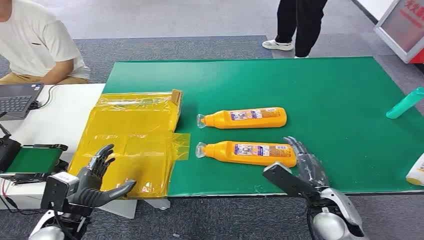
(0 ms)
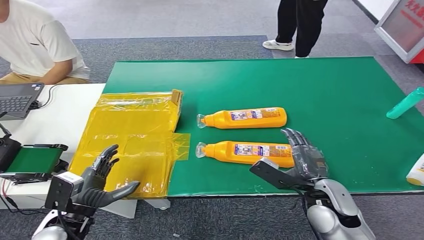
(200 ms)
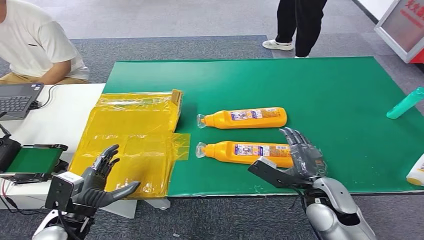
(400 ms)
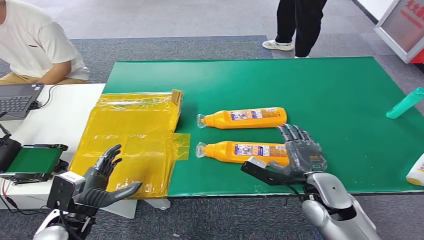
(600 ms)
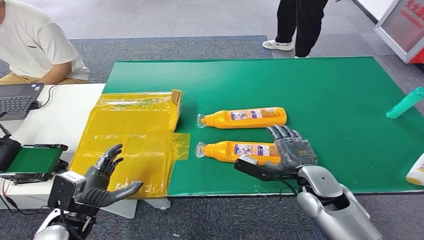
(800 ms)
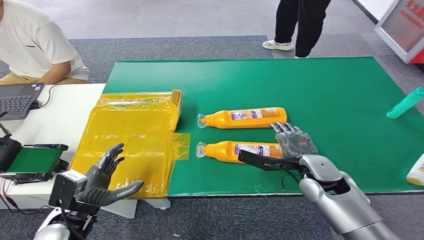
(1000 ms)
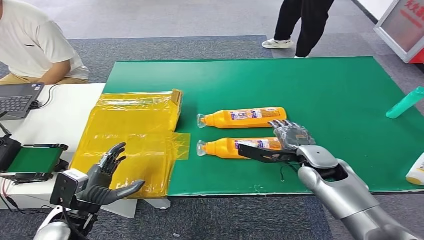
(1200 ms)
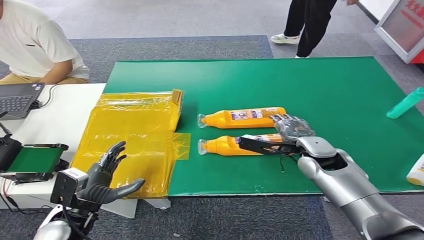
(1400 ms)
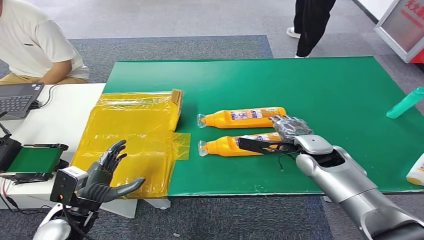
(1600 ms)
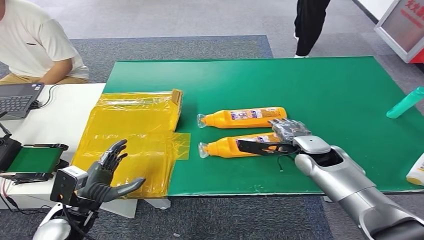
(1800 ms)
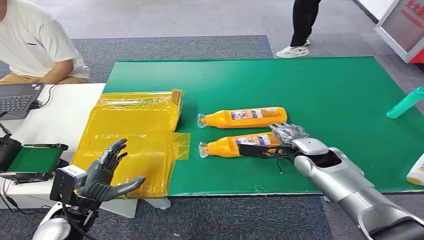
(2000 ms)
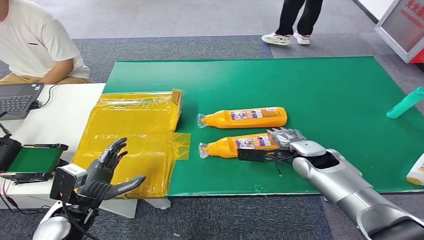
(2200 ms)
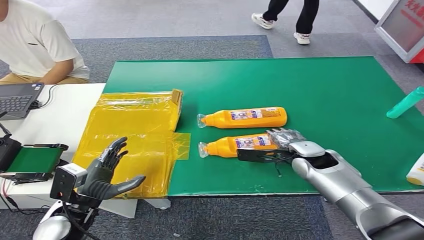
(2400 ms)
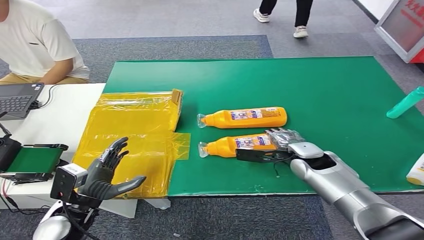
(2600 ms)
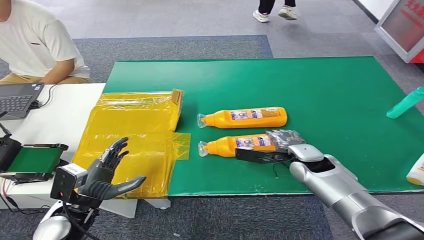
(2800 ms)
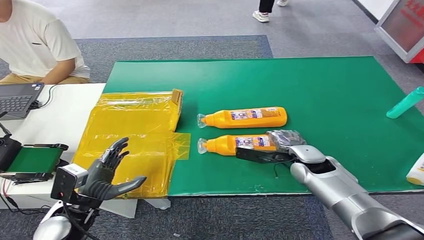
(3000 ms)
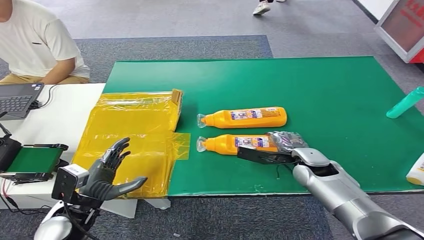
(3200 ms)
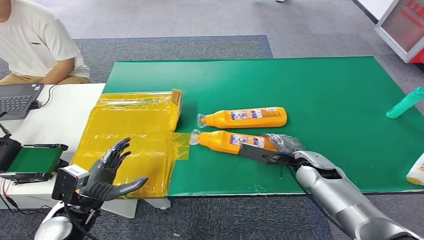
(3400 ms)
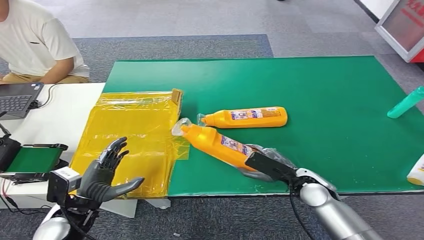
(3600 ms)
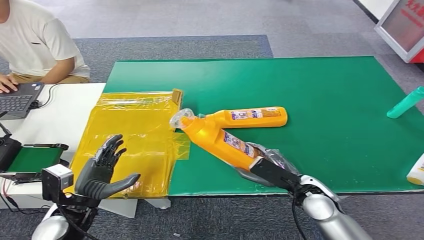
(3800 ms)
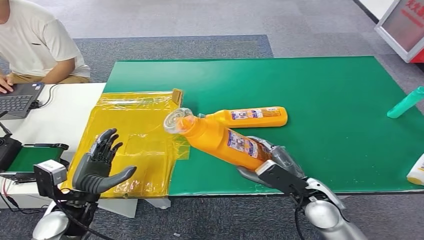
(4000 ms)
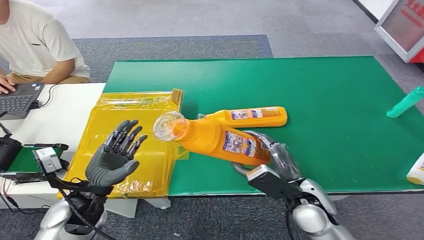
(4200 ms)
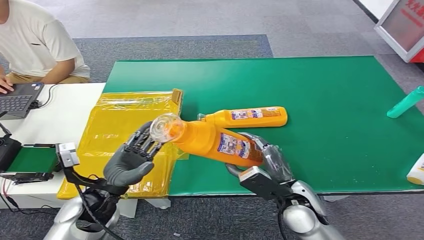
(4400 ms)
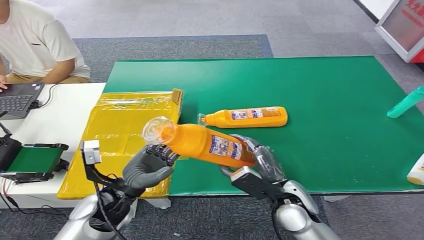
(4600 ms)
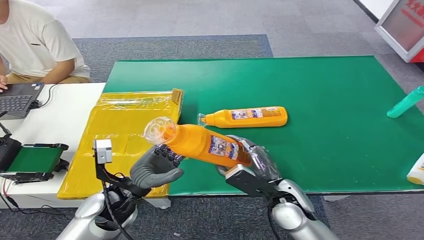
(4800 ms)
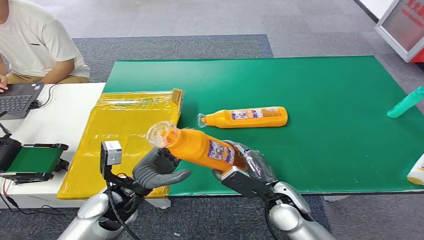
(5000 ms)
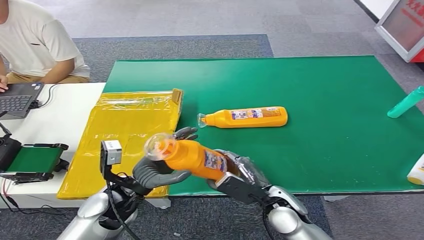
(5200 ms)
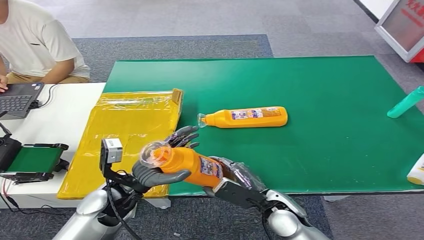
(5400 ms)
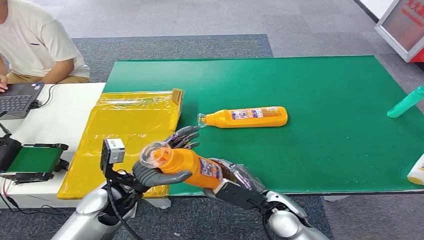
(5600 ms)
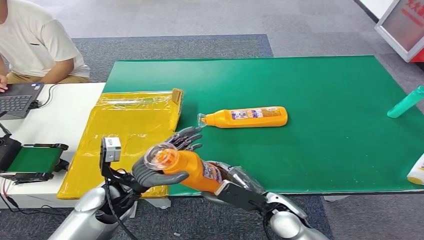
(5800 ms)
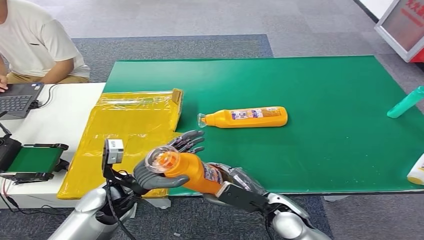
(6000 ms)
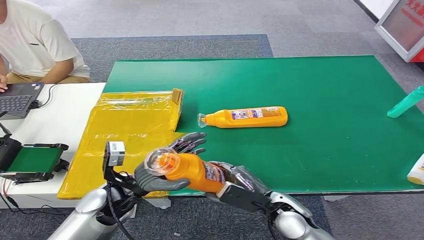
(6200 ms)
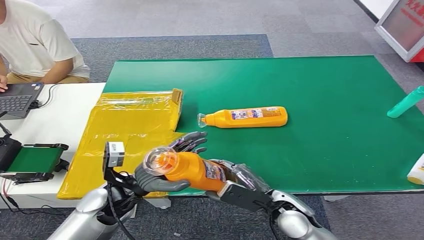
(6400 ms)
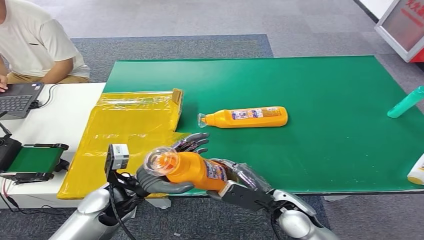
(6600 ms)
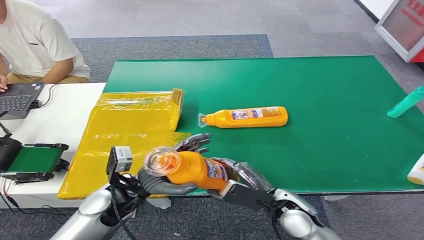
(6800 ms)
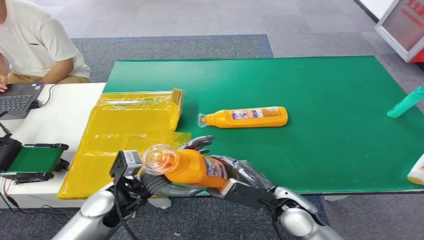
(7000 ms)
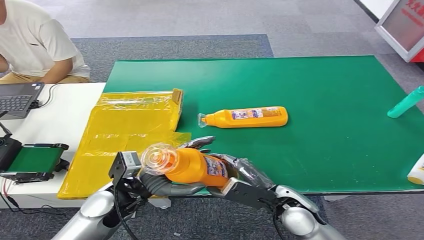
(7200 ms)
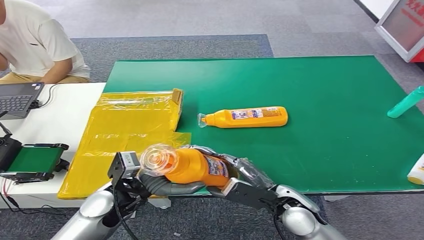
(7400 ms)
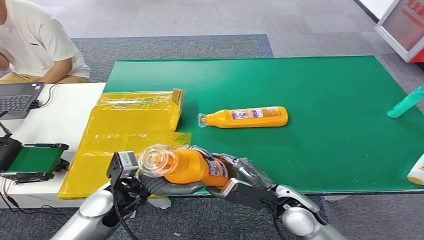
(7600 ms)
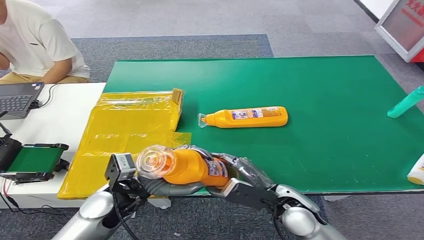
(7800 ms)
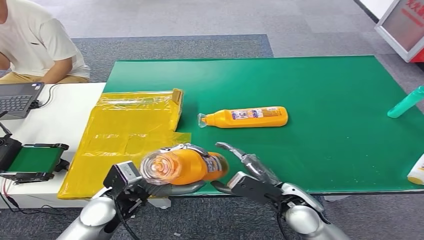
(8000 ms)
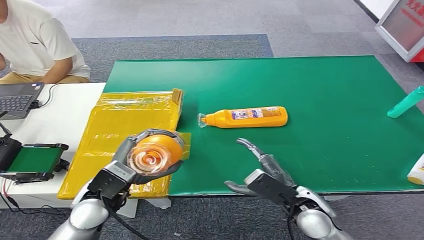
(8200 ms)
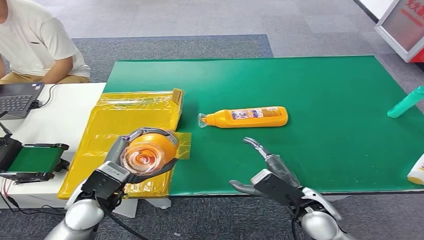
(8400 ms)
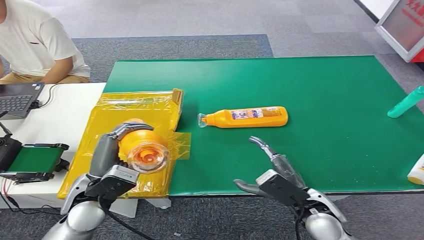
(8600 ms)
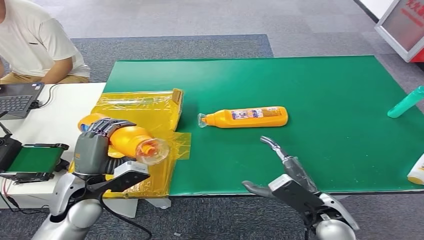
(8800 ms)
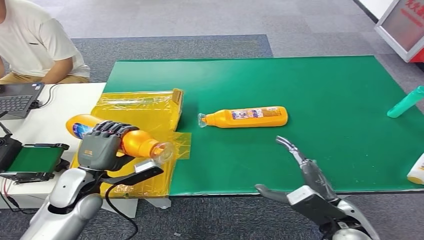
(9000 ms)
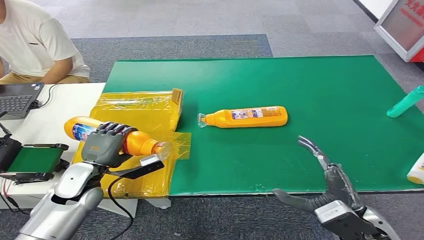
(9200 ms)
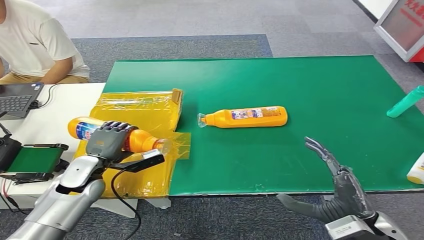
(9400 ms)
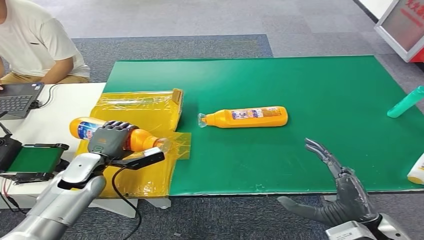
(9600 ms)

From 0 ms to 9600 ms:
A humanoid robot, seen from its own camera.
Step, from 0 ms to 4000 ms: Pick up the bottle from the table.
From 1600 ms to 3200 ms: The right hand moves downward, some 5 cm.
From 8000 ms to 9600 ms: The left hand moves to the left and forward, some 15 cm; the right hand heads to the right, backward and upward, covering some 15 cm.

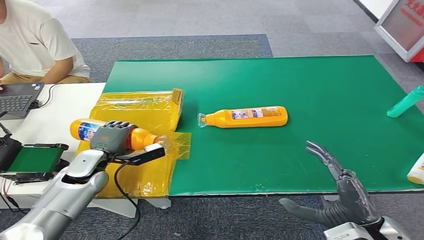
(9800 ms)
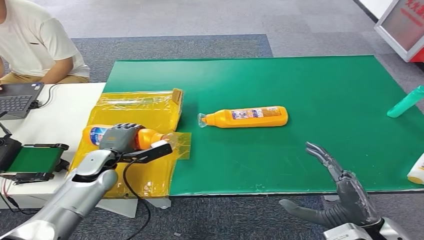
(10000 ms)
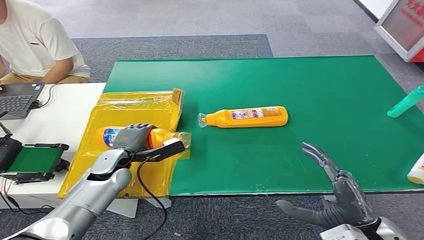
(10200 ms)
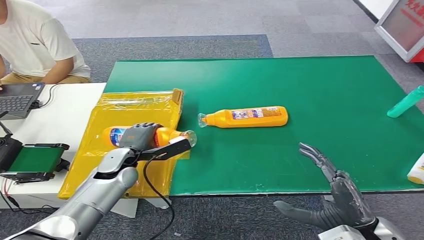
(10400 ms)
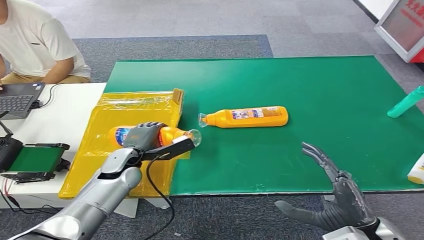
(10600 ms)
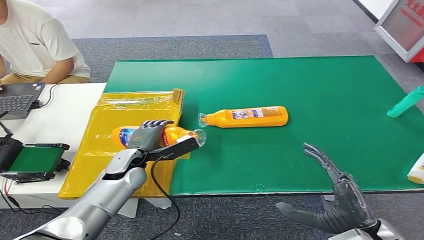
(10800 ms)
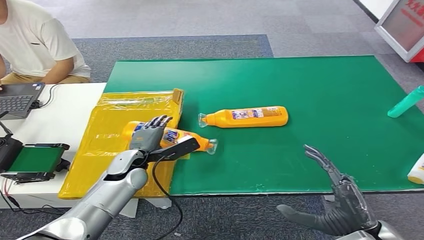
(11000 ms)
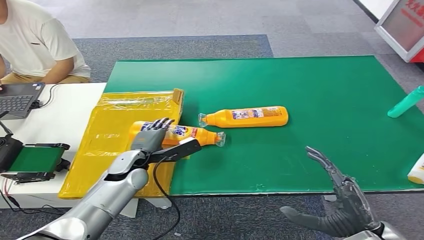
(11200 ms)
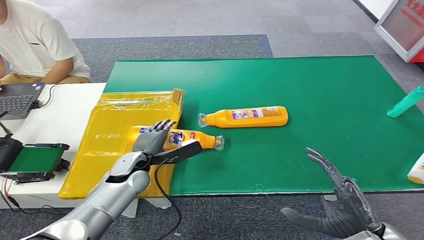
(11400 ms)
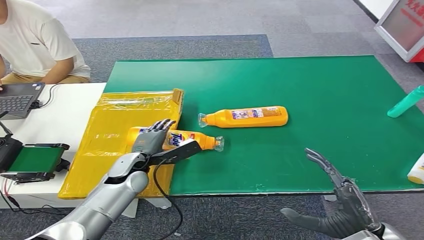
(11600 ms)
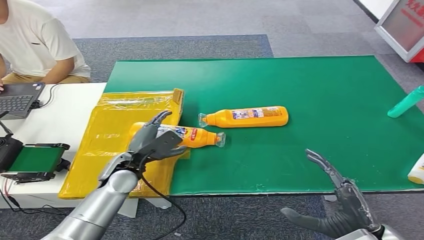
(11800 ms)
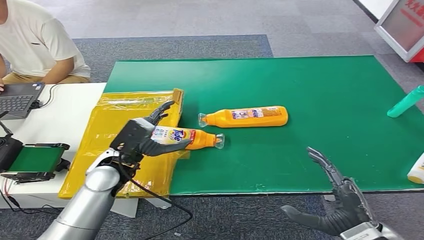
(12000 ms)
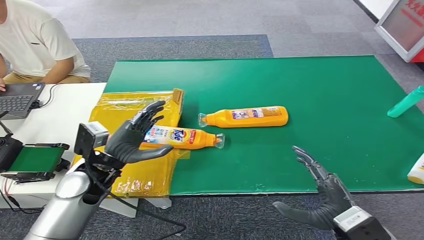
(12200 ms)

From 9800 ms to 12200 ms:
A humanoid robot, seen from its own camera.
Step, from 9800 ms to 12200 ms: Turn the bottle to the front side.
From 9800 ms to 11000 ms: The left hand goes roughly 10 cm to the right.
From 11000 ms to 12200 ms: The left hand shifts some 10 cm upward and backward.

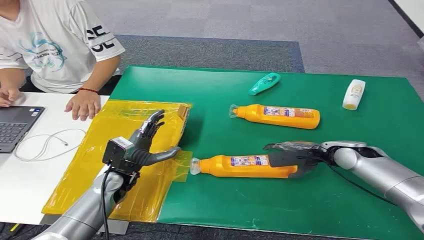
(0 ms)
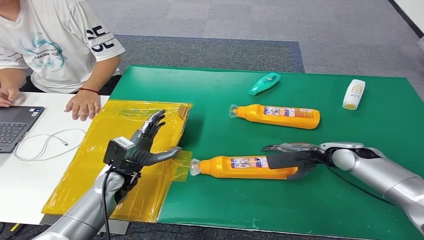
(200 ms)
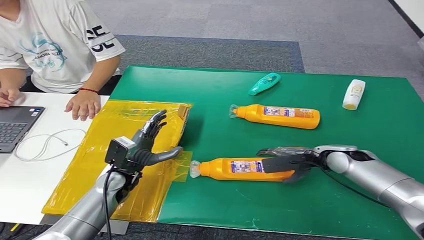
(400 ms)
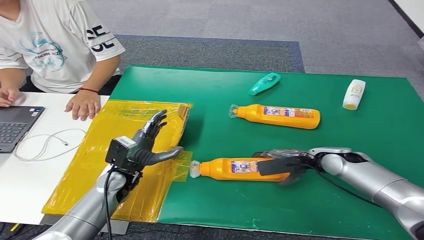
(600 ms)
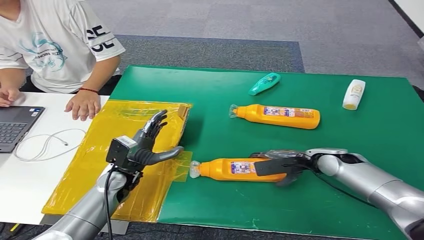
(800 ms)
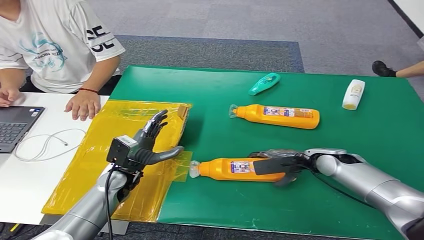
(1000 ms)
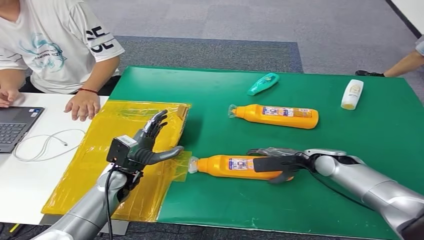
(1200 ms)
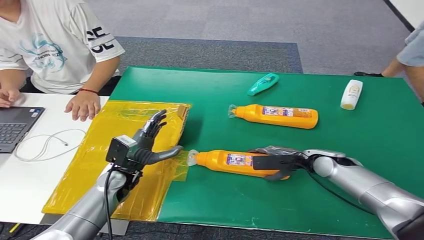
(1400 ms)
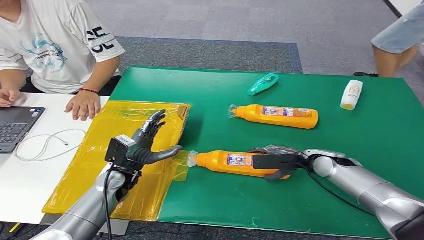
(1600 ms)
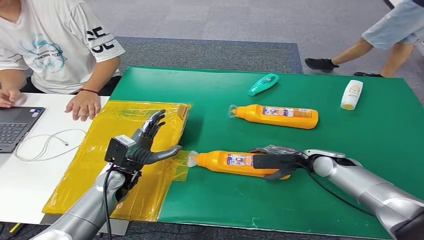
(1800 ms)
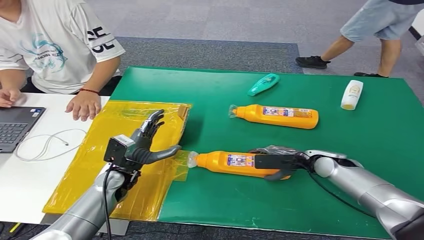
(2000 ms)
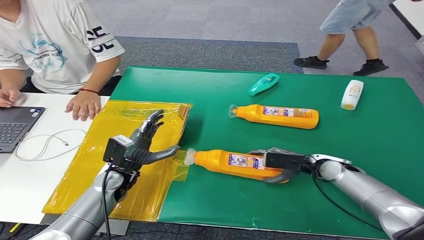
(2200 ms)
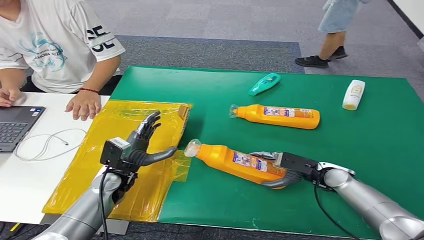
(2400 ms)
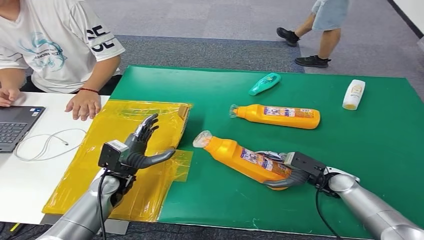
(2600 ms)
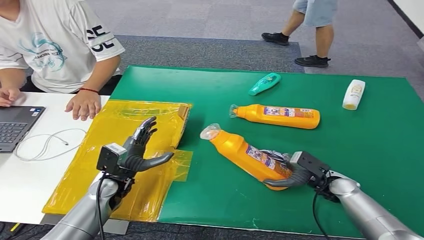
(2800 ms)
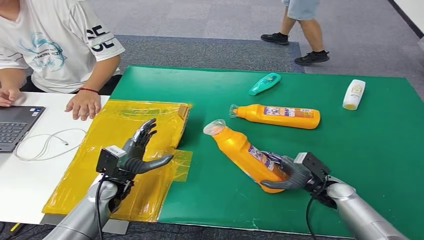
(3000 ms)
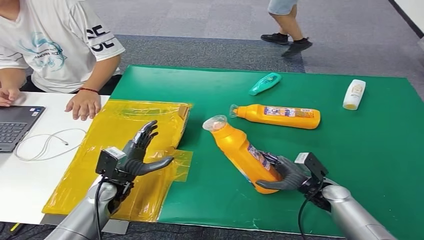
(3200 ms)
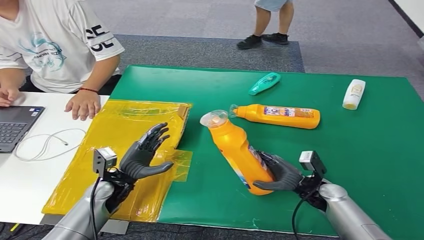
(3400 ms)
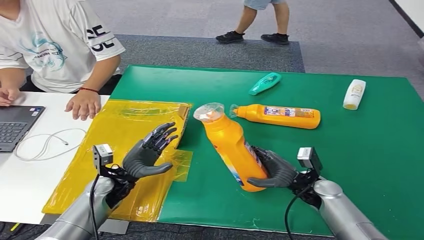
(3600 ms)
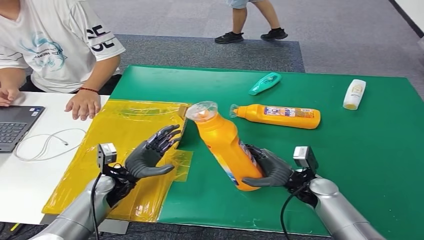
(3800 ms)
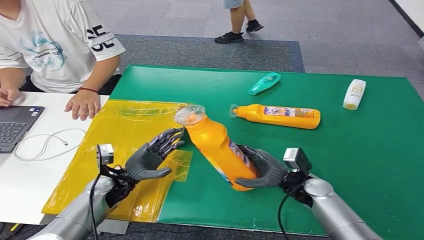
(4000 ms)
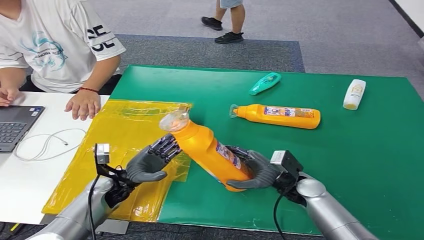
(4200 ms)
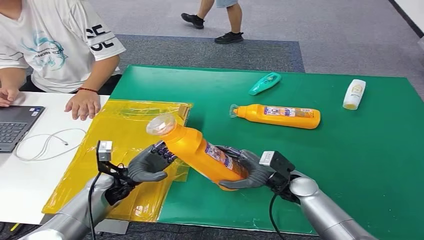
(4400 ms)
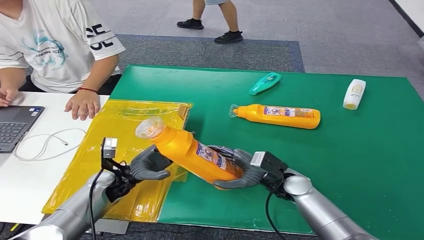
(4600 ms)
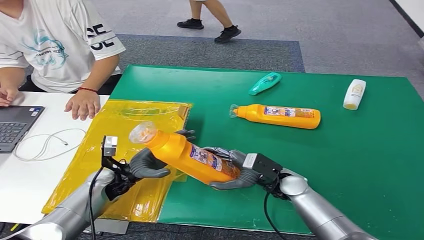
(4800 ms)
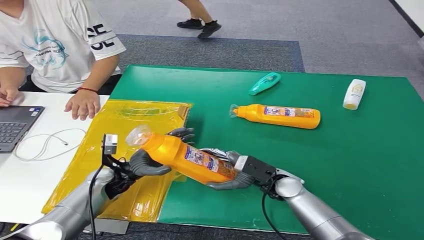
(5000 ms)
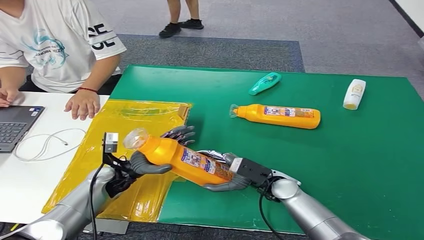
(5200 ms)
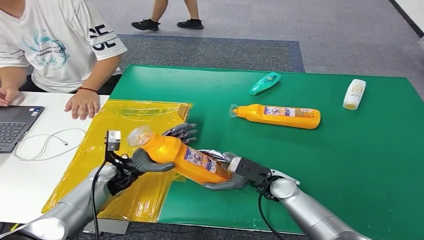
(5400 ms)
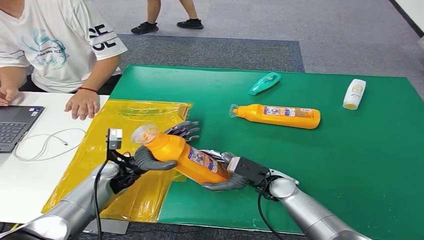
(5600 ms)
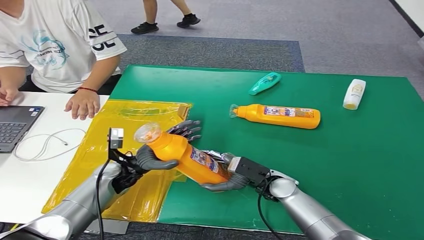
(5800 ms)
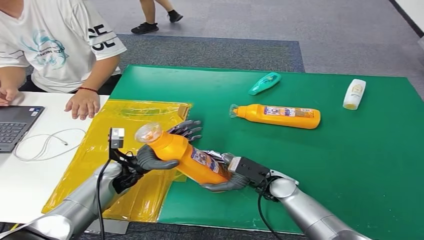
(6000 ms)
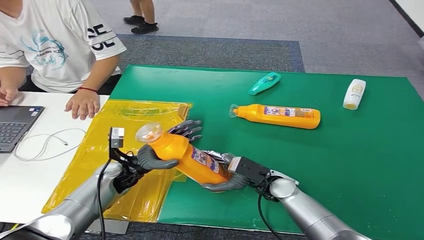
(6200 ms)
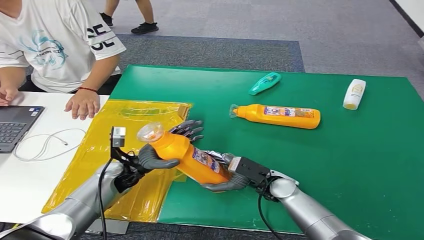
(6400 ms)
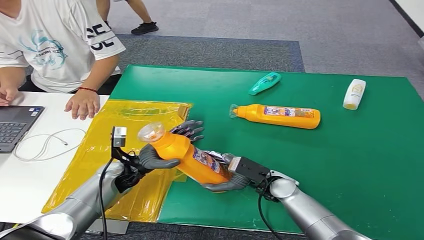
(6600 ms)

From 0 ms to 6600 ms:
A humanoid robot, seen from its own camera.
Step, from 0 ms to 2800 ms: Pick up the bottle from the table.
From 1600 ms to 3200 ms: The right hand travels backward and downward by some 10 cm.
From 5000 ms to 6600 ms: The hands move only a little.
